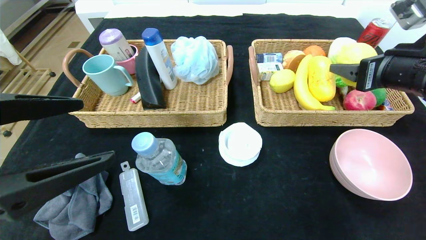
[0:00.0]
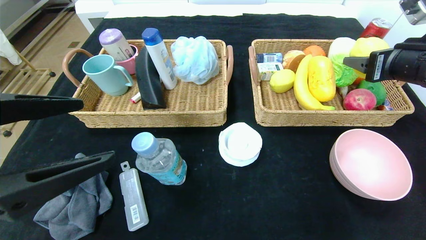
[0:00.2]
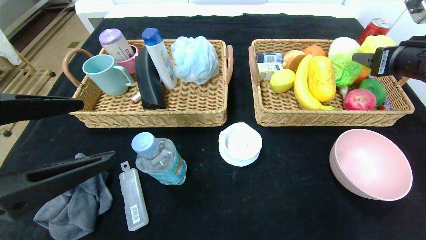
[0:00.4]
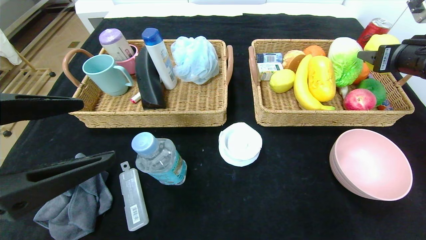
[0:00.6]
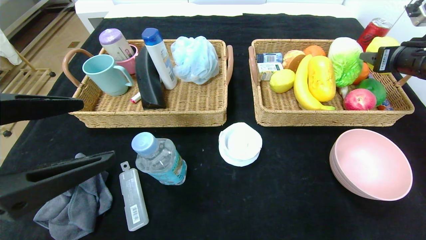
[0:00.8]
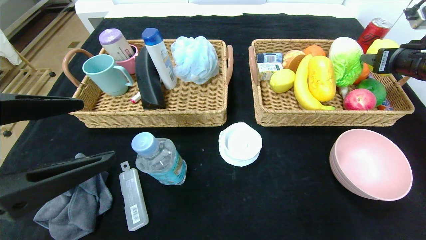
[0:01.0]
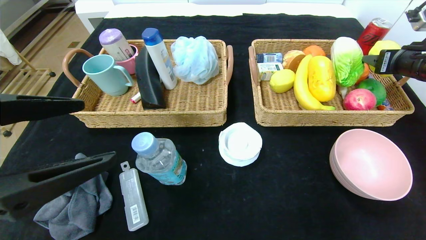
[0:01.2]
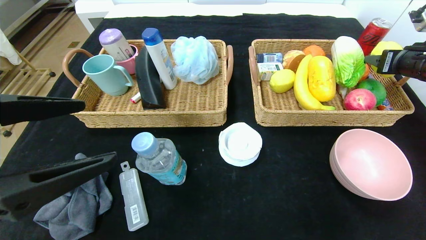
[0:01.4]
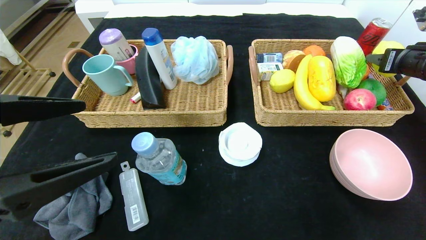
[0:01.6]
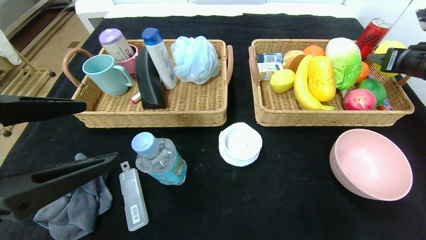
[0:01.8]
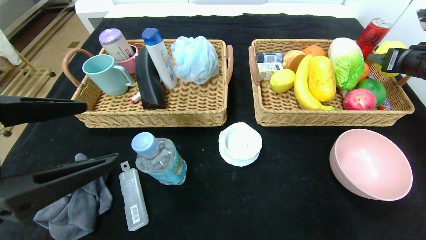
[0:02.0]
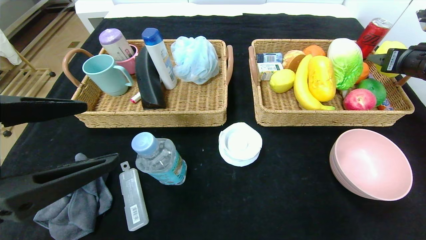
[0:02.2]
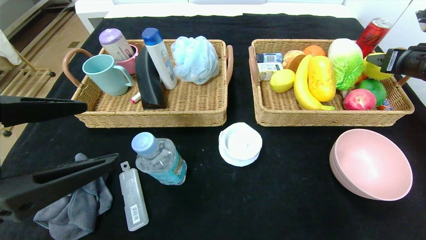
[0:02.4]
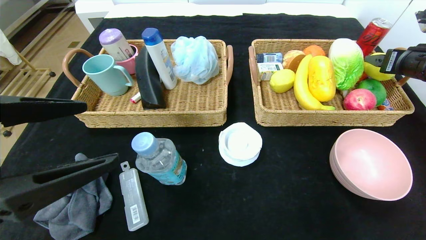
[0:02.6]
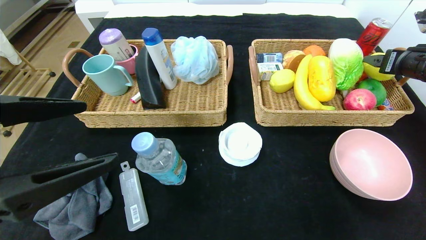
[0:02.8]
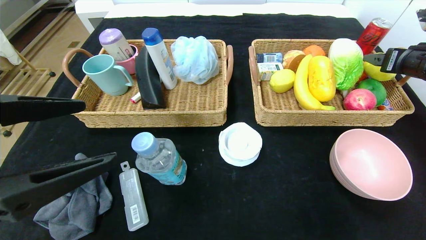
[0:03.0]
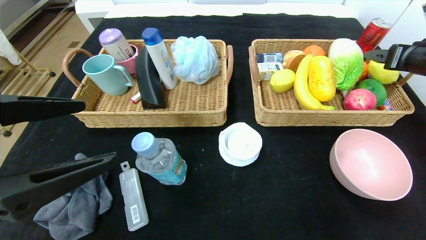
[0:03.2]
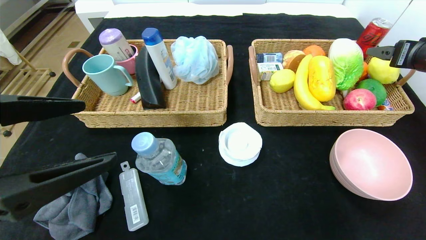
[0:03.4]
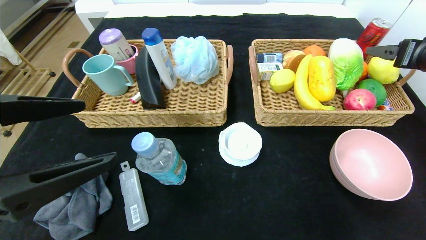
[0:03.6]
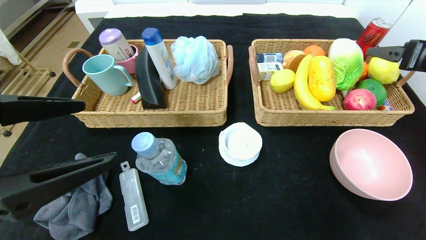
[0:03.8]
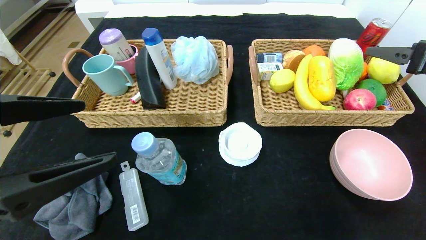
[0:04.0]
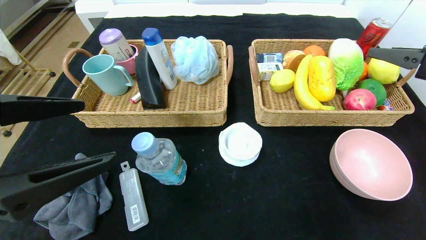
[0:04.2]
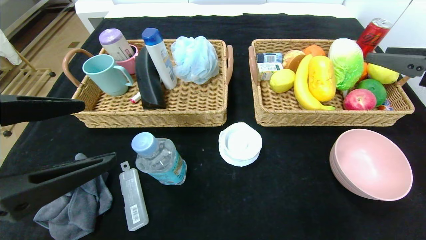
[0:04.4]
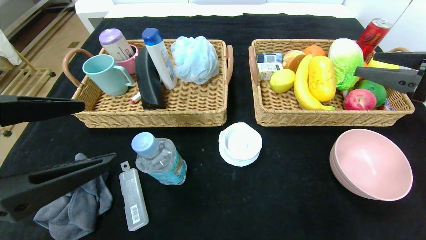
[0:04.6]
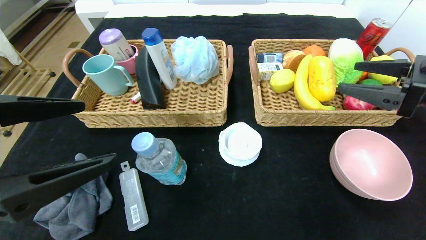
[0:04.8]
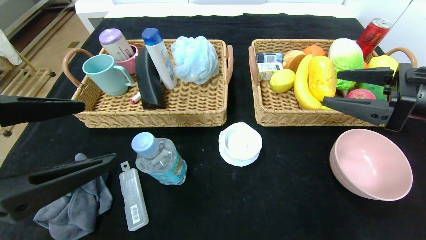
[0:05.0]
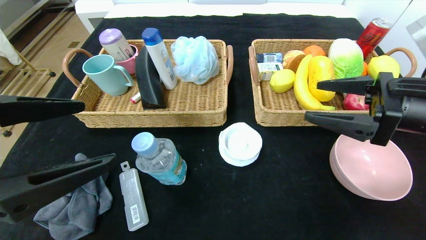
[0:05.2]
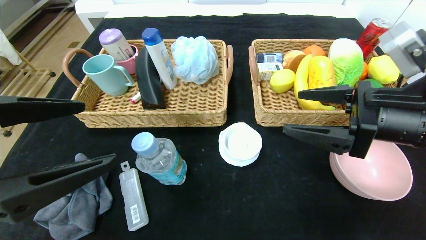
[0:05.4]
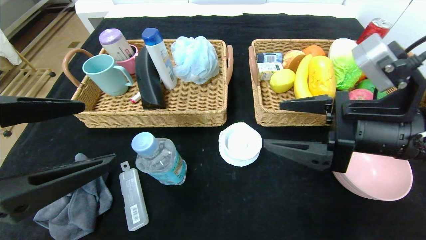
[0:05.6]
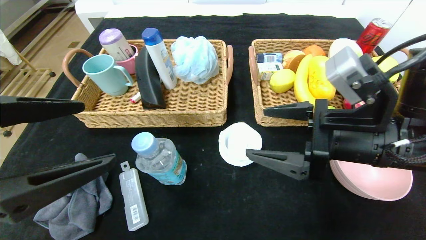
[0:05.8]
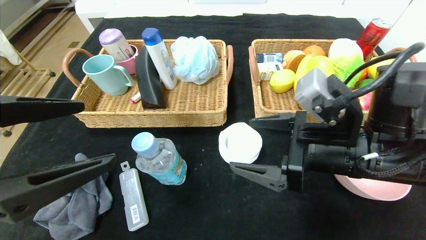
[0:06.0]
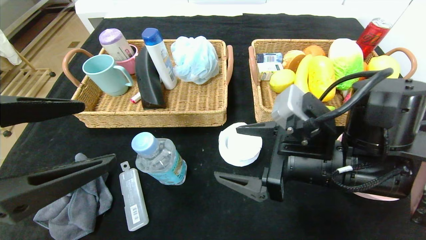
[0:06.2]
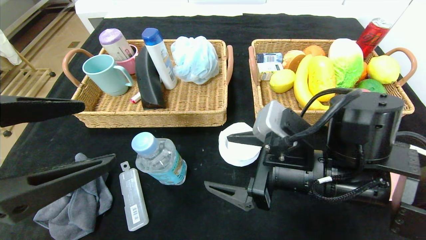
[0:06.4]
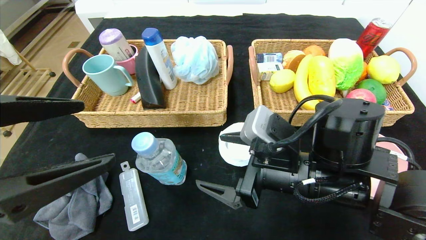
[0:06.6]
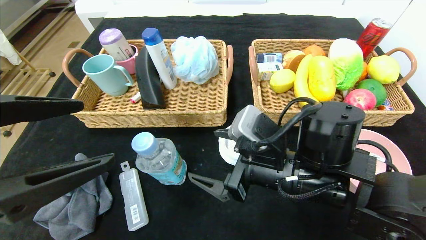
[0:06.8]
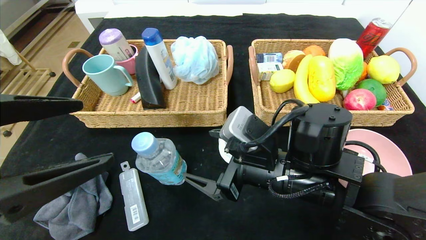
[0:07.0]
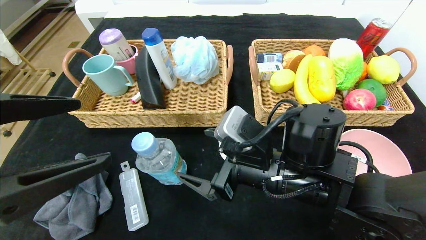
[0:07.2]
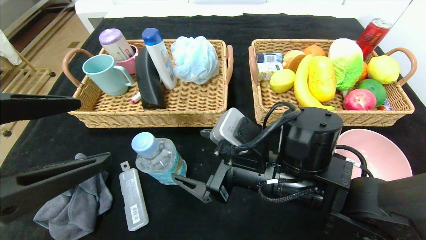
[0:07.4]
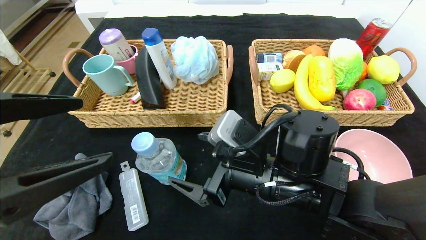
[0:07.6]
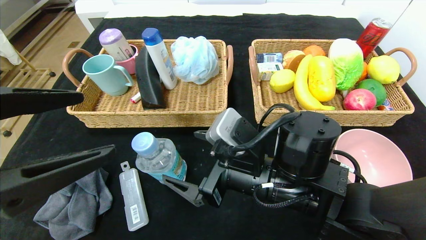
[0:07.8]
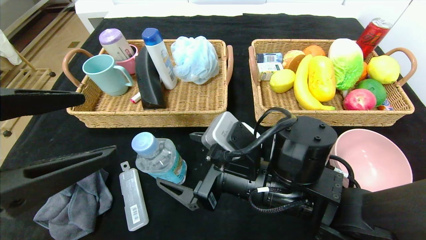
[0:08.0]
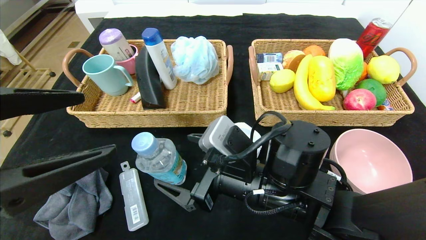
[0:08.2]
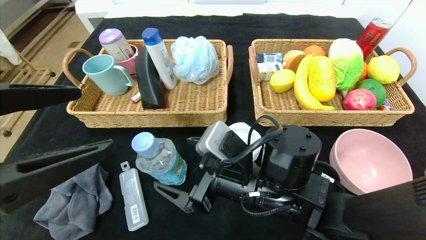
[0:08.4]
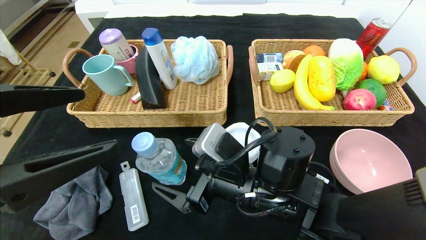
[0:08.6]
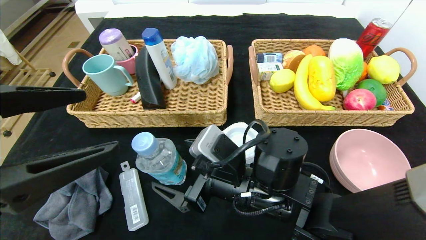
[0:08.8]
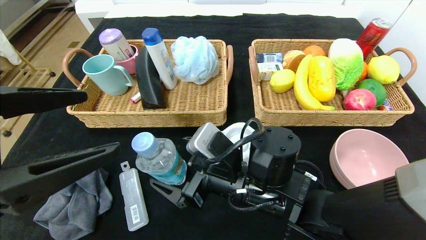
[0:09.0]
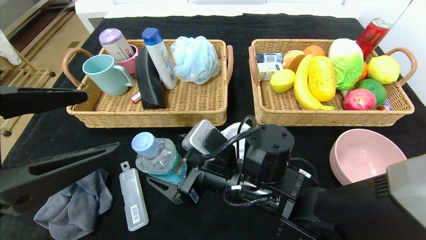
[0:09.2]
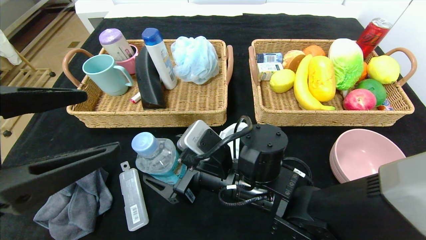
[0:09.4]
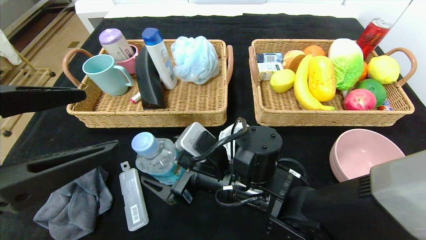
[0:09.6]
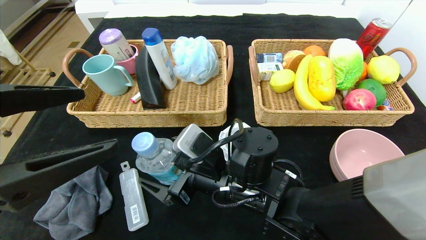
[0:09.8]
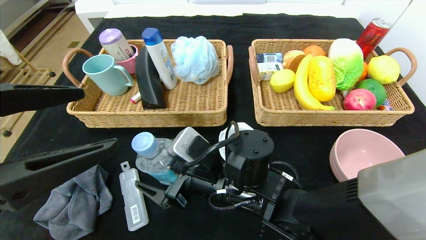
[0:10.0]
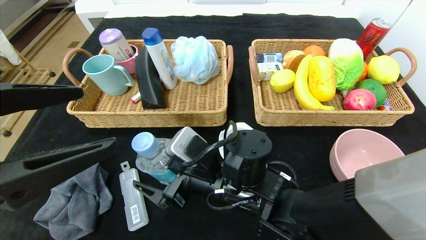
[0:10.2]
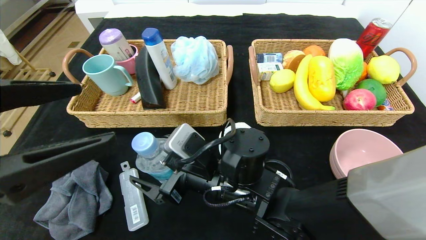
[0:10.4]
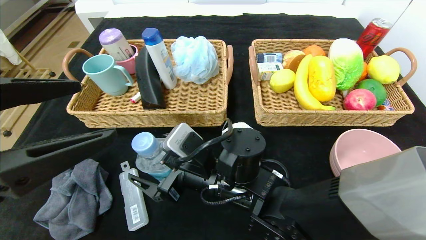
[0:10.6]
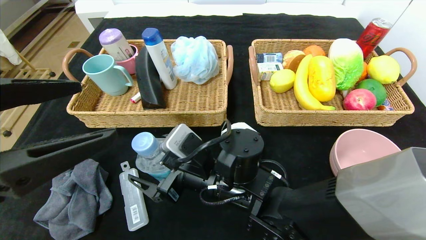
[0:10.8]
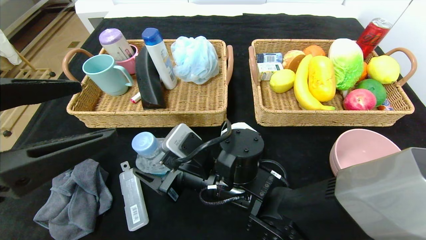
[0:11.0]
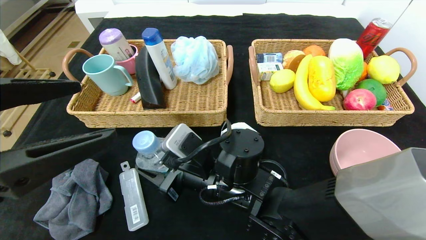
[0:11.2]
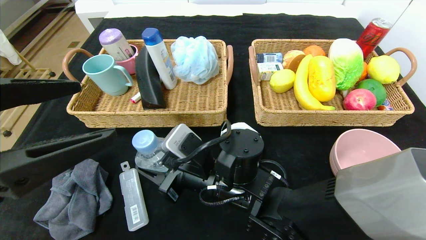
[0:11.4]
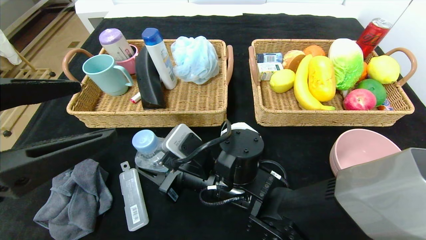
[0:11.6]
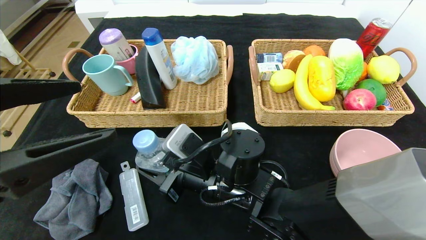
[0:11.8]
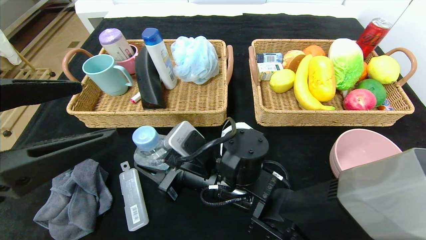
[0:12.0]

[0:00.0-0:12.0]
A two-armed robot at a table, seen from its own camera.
Step, 0:00.0 to 0:06.0: Pick up the lemon and put it in the right basket.
0:00.0 to 0:01.6: The right gripper moves to the right and forward, approximately 15 cm.
0:01.6 to 0:03.0: Both grippers stay about where they are.
0:03.0 to 0:04.4: The right gripper is displaced backward by roughly 10 cm.
0:04.4 to 0:06.0: The right gripper heads to the left and downward, covering roughly 20 cm.
0:06.0 to 0:07.6: The right gripper heads to the left and downward, covering some 10 cm.
0:07.6 to 0:09.0: The grippers make only small movements.
0:09.0 to 0:10.4: The grippers move only a little.
0:10.4 to 0:12.0: The right gripper closes up.

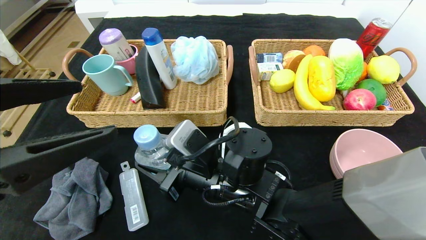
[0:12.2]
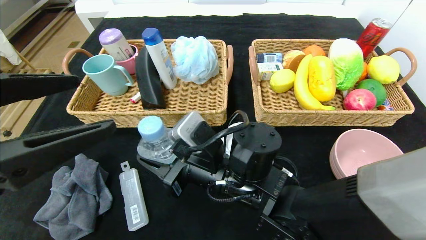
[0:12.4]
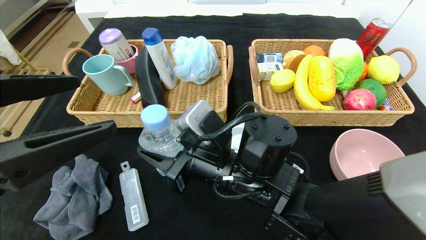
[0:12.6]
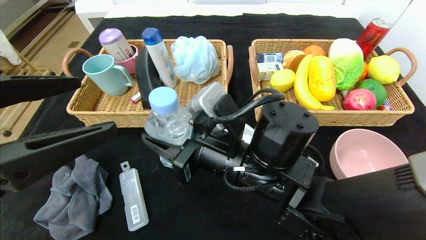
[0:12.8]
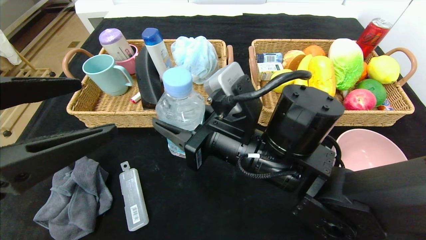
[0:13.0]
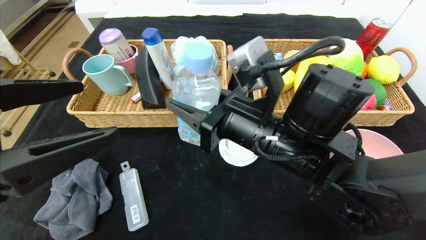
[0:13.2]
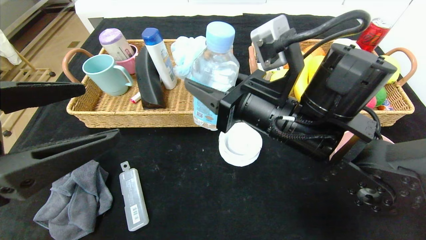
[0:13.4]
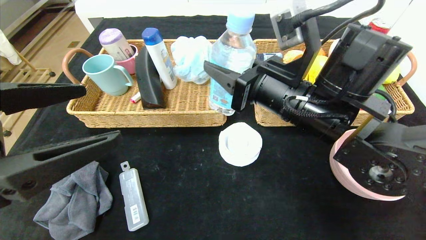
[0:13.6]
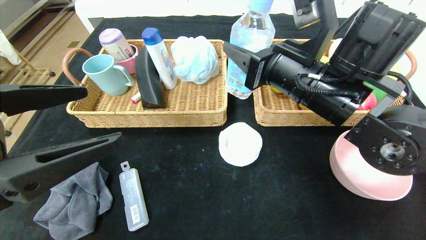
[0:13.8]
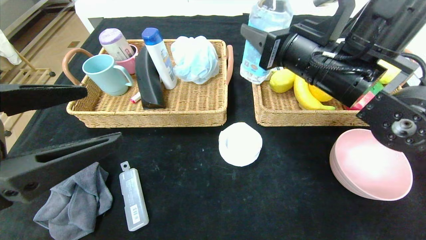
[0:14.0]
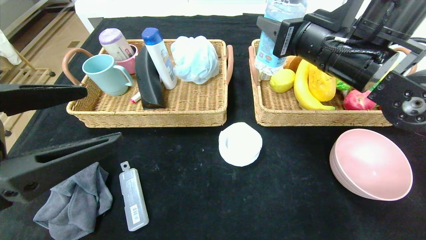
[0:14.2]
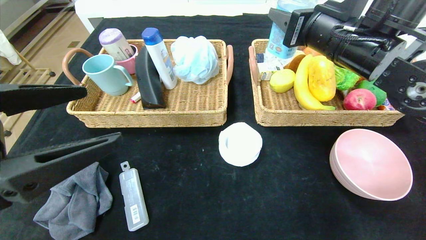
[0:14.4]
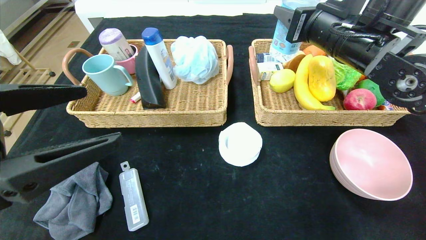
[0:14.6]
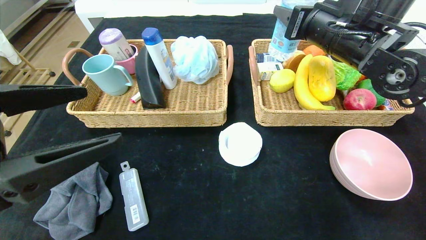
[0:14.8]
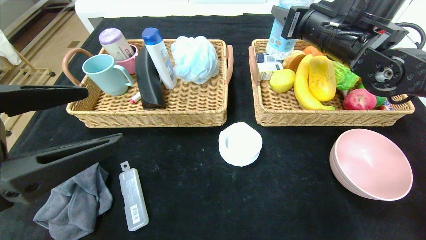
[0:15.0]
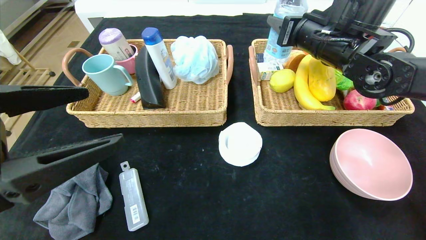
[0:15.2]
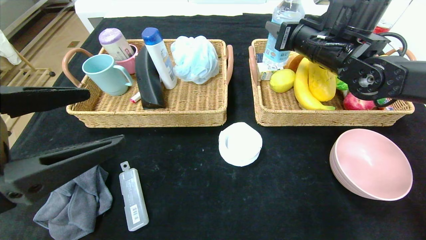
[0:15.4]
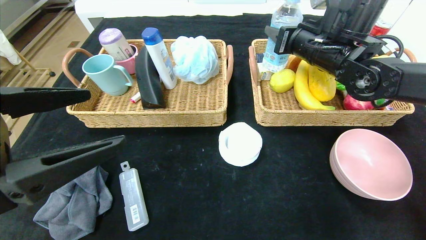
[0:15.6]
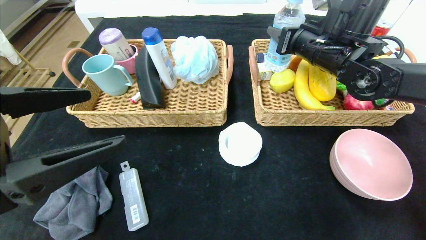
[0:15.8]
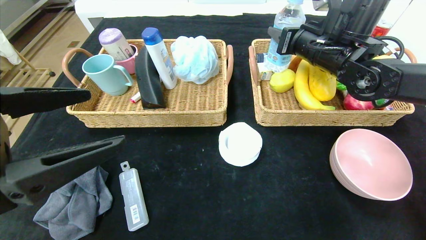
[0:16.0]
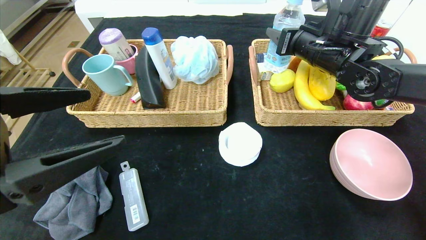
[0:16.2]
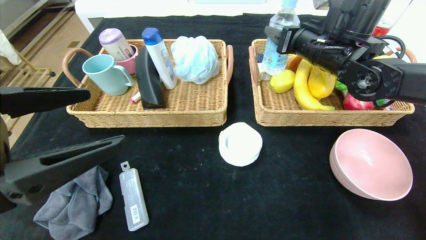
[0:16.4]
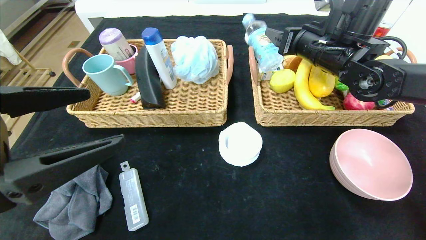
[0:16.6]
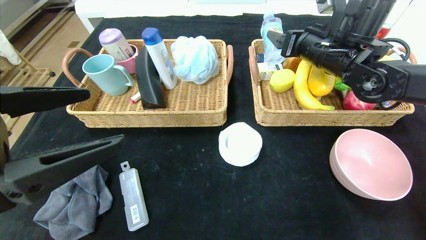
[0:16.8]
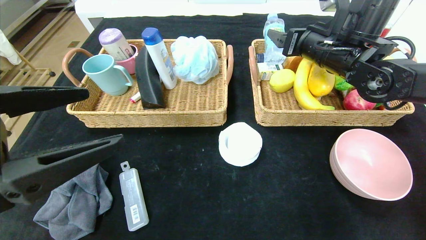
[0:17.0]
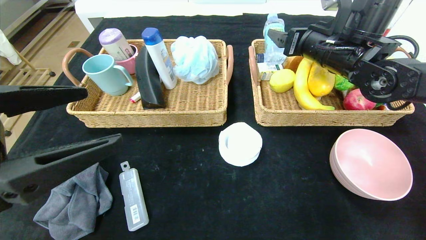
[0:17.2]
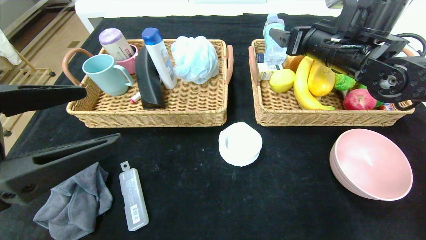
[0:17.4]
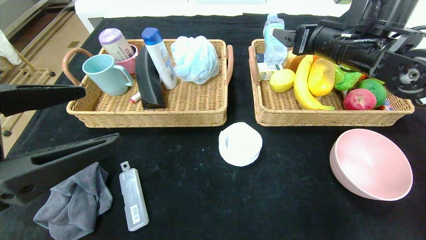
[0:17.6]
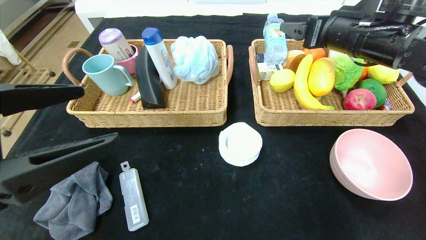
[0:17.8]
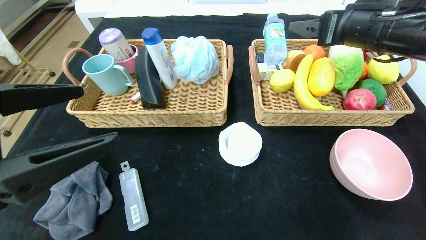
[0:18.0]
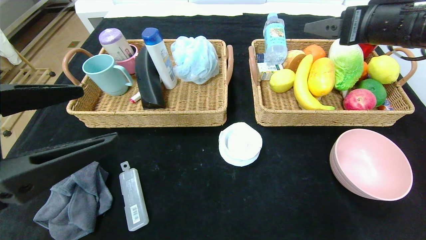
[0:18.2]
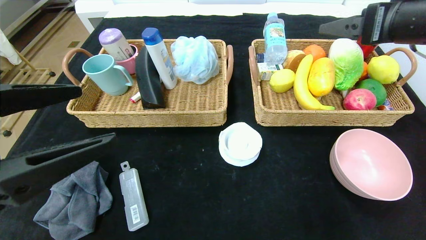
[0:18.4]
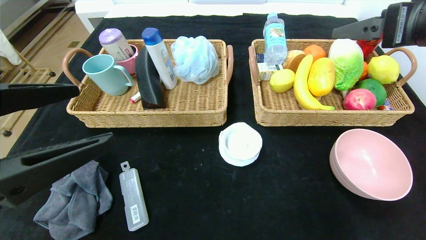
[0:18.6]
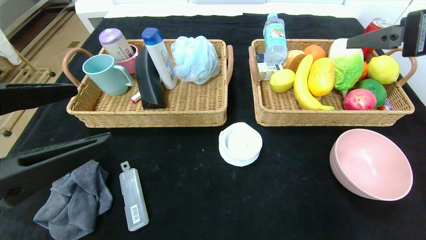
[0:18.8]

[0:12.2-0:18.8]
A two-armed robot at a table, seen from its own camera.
0:12.2 to 0:13.8: The right gripper shifts roughly 20 cm upward and to the right.
0:13.8 to 0:15.4: The right gripper moves forward and to the right, approximately 10 cm.
0:15.4 to 0:17.2: The right gripper opens up.
0:17.2 to 0:18.8: The right gripper is displaced backward and to the right by approximately 20 cm.
